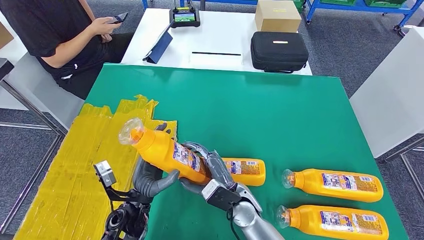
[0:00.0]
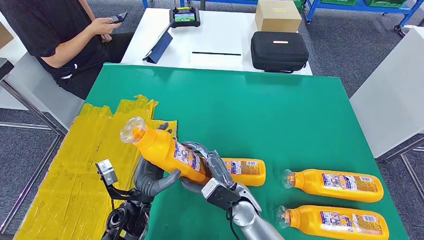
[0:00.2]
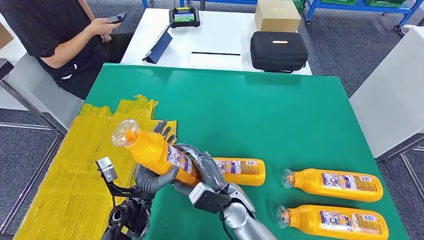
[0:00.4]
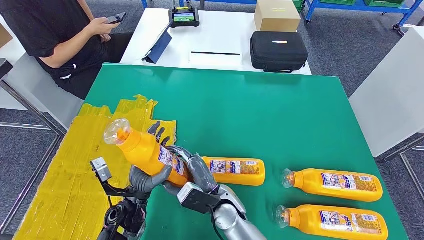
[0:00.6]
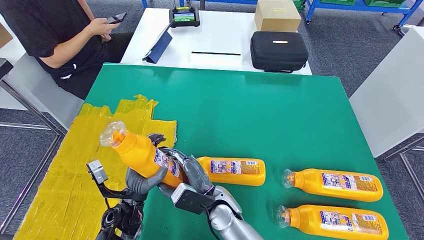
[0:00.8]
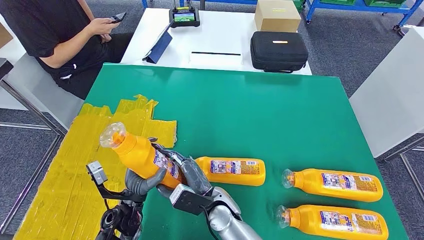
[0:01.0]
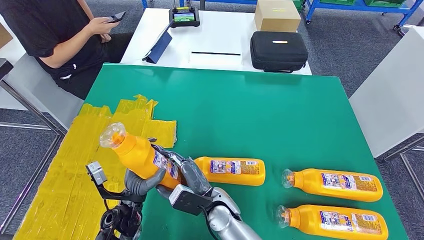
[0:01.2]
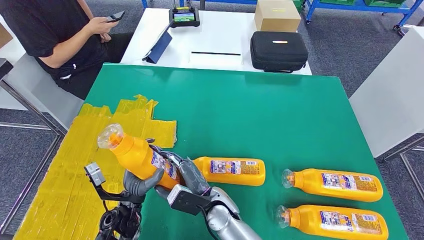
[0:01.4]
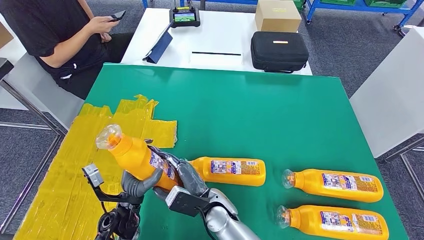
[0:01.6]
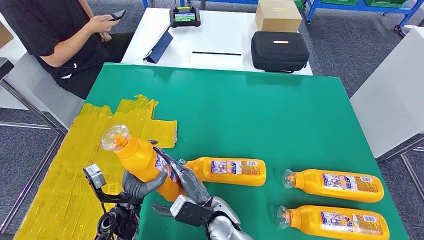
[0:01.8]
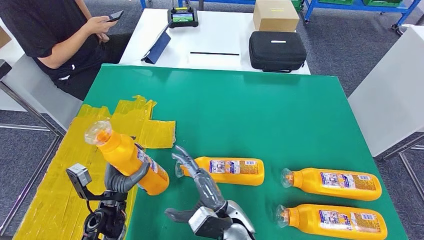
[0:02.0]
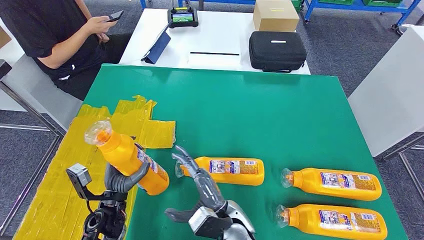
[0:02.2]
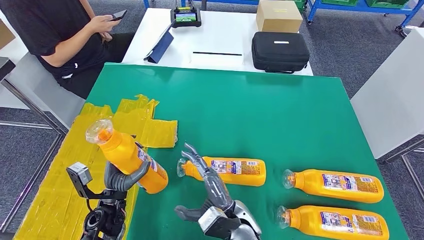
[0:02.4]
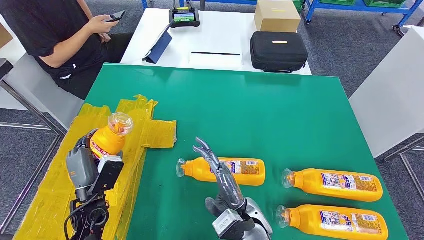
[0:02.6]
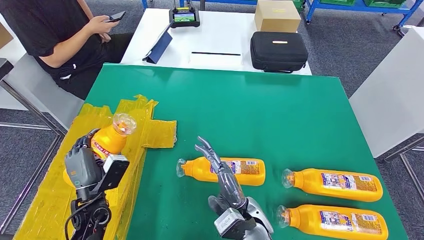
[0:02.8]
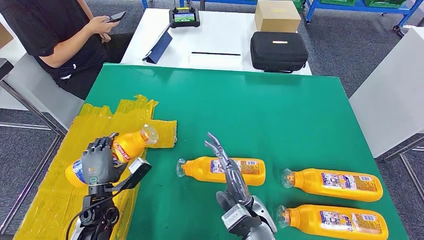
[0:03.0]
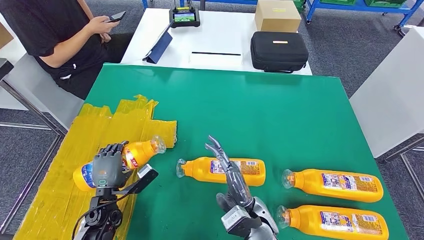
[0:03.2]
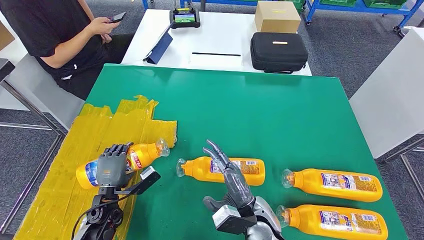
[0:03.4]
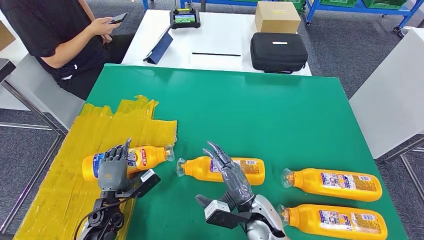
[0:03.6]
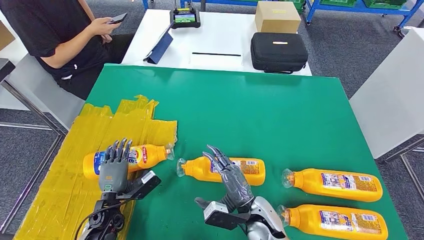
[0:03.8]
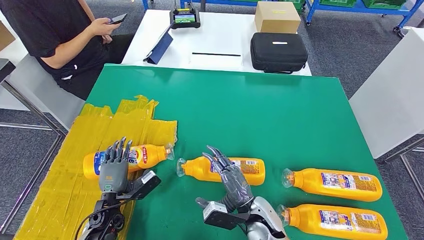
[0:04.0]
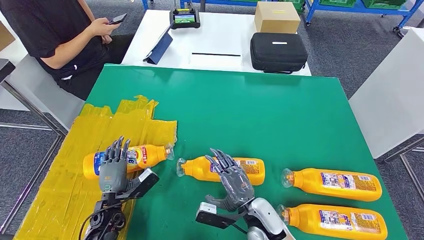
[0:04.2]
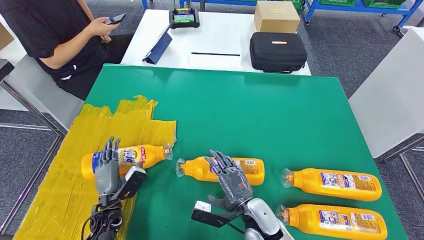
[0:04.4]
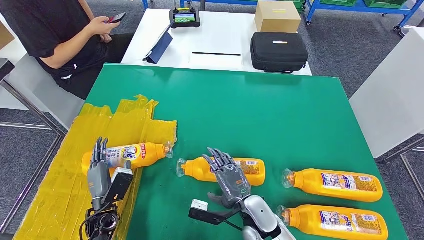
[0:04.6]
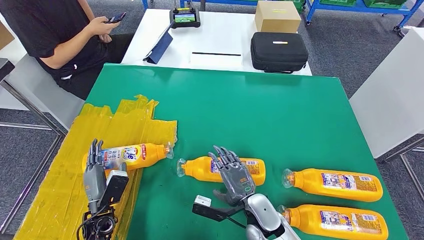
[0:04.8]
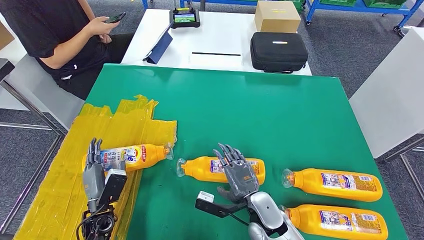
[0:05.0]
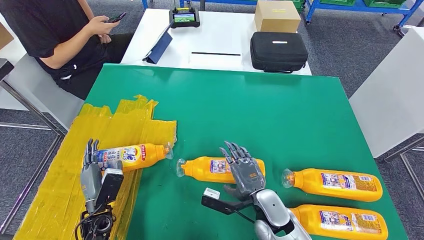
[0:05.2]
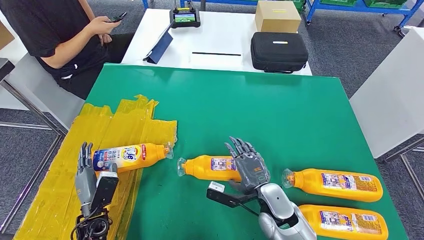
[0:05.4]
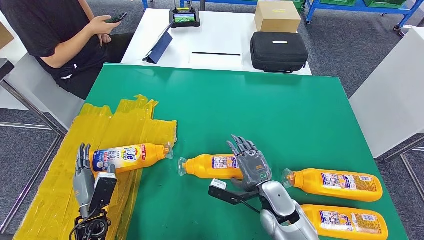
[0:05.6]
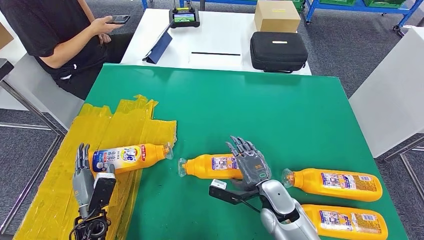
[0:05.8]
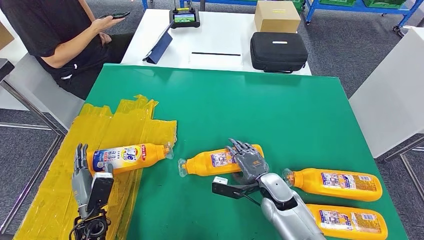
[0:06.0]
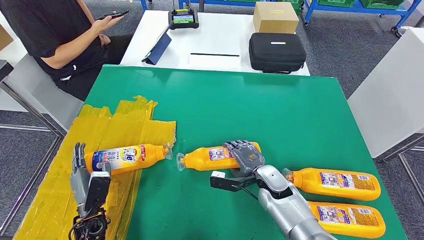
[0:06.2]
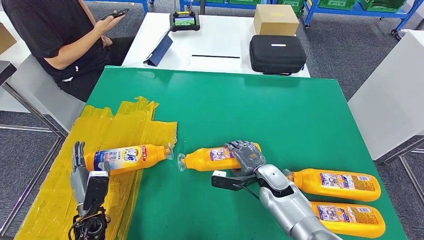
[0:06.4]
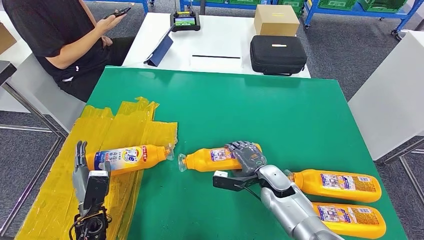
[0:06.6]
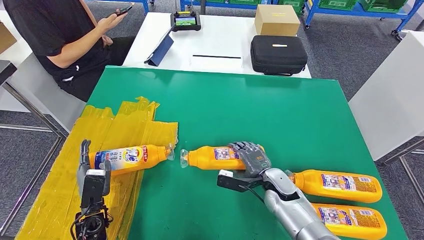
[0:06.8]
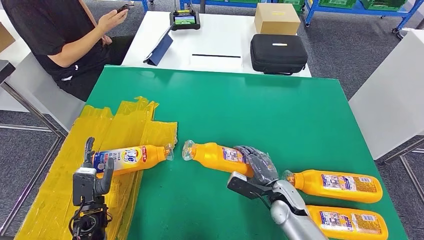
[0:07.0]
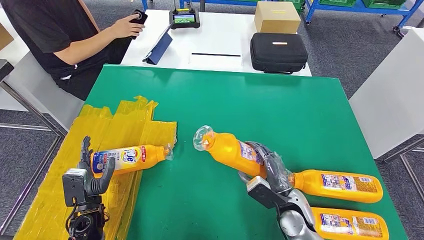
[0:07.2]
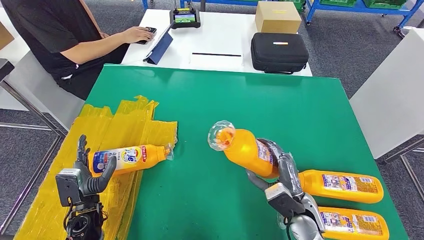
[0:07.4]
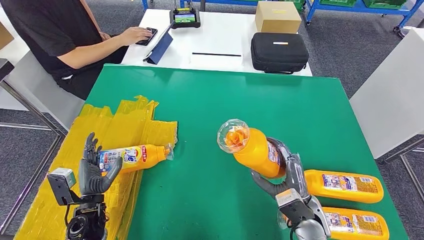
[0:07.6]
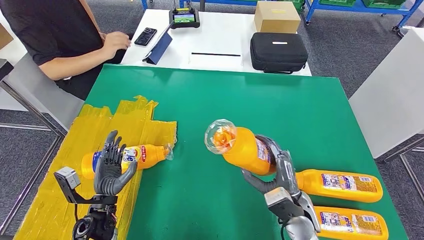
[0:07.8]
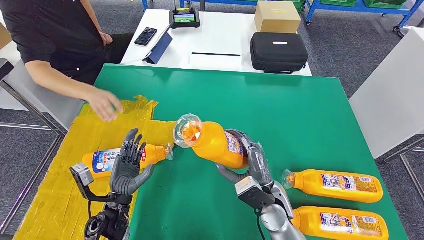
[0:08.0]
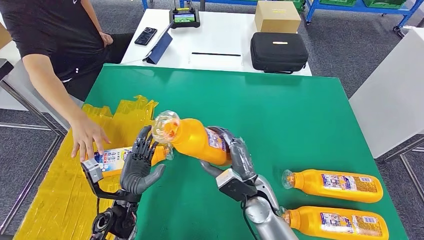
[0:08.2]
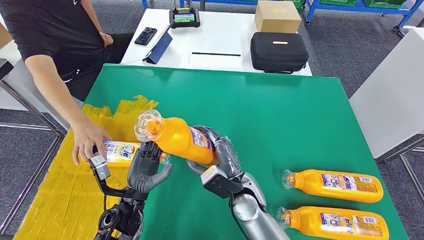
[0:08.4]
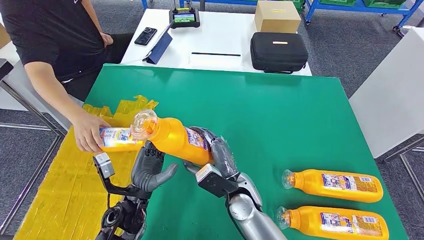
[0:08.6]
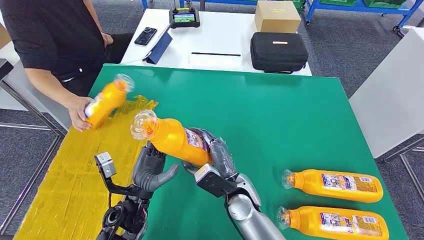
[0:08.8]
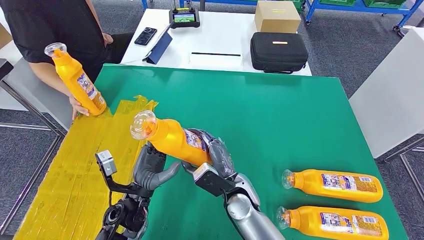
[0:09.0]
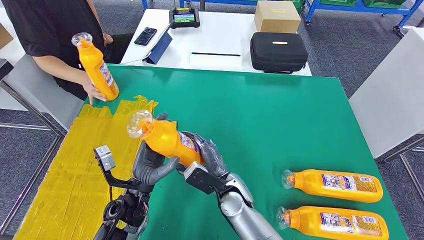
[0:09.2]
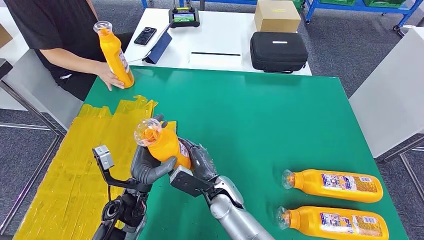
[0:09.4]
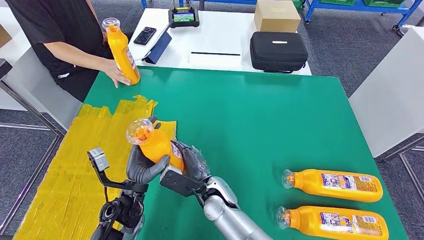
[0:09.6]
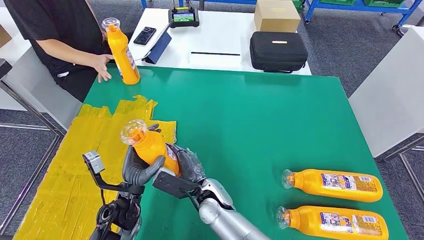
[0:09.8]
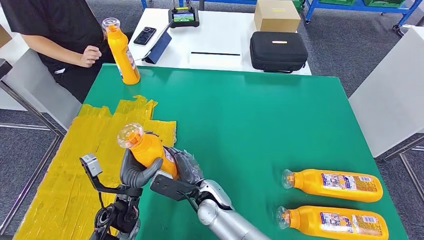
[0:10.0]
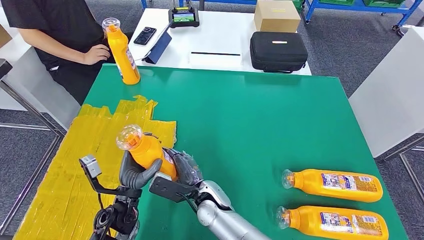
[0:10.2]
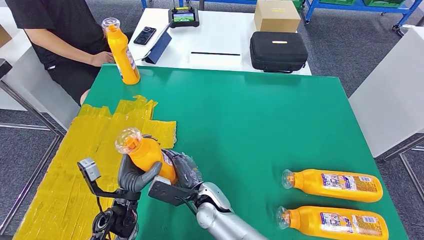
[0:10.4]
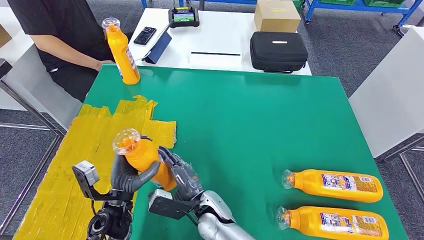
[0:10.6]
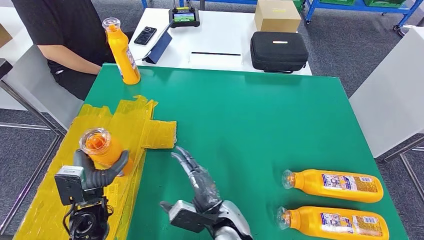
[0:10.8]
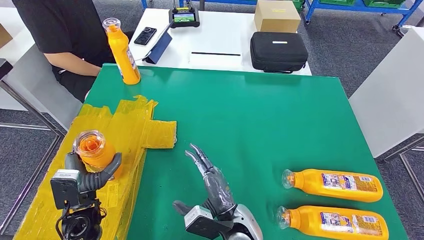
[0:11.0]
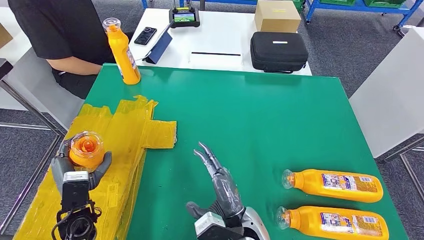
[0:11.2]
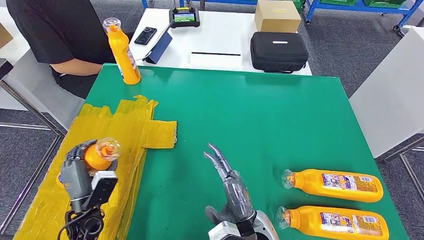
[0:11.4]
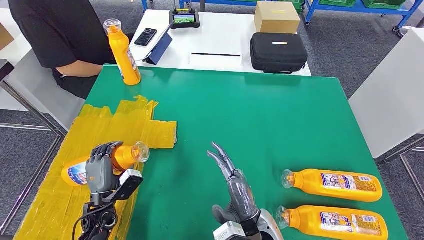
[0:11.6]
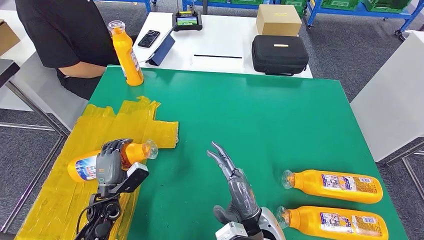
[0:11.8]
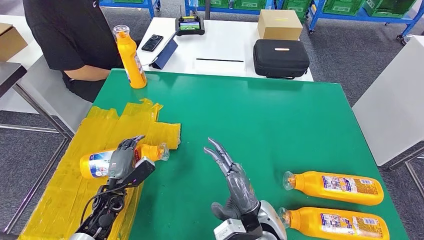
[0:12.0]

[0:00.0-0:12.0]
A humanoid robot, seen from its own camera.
Step, 0:00.0 to 0:04.4: Flip the bottle to face forward.
Step, 0:06.8 to 0:09.4: Pick up the bottle from the table.
0:00.0 to 0:01.6: The right hand goes about 10 cm to the left.
0:01.6 to 0:03.0: The right hand shifts some 10 cm to the right. The left hand heads to the left, covering some 10 cm.
0:03.0 to 0:04.4: The right hand changes place by roughly 5 cm. Meanwhile the left hand changes place by roughly 5 cm.
0:04.4 to 0:06.0: The right hand travels forward and to the right by about 10 cm.
0:06.0 to 0:07.6: The right hand travels backward and to the right by roughly 10 cm.
0:09.0 to 0:10.4: The right hand heads to the left, covering approximately 10 cm.

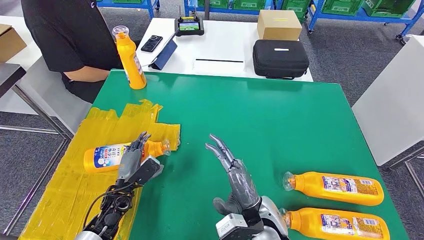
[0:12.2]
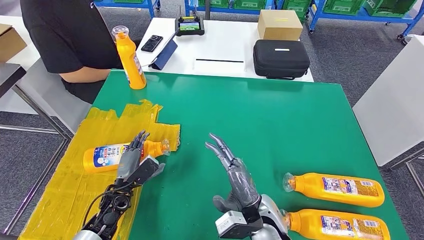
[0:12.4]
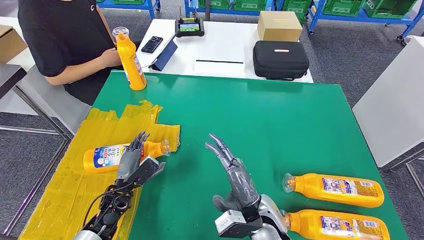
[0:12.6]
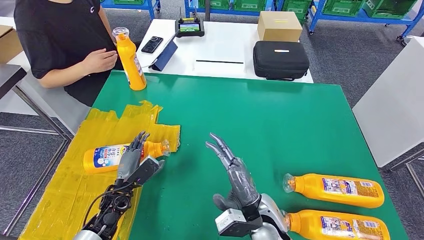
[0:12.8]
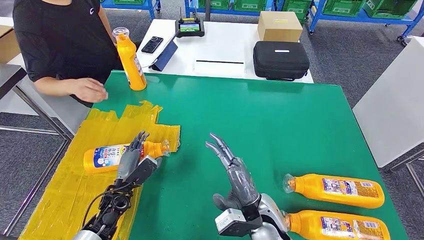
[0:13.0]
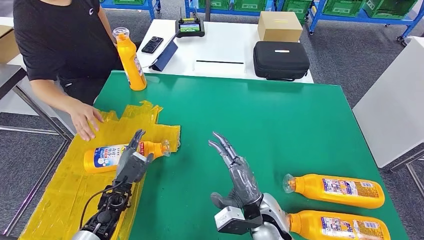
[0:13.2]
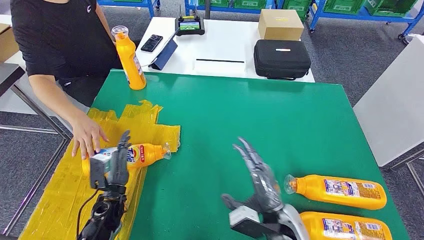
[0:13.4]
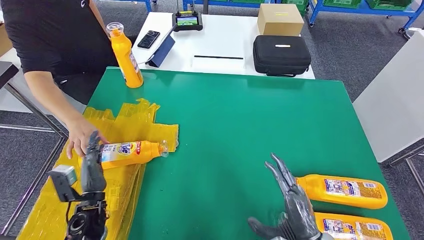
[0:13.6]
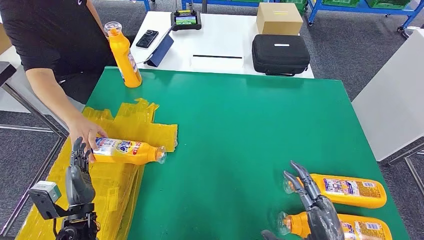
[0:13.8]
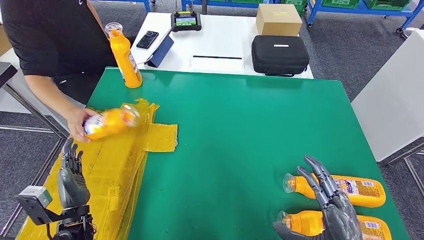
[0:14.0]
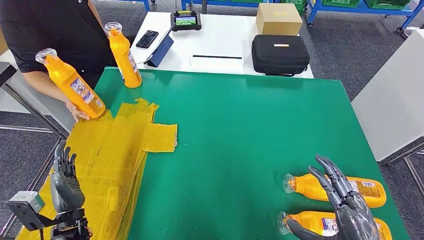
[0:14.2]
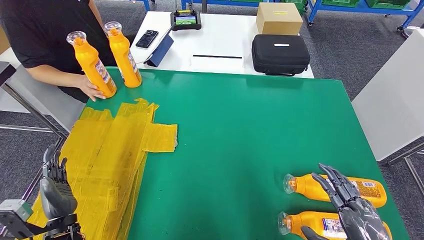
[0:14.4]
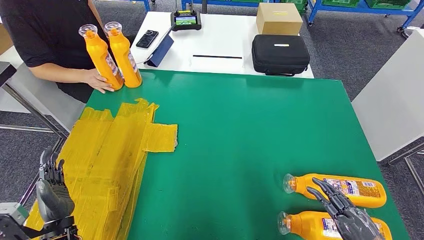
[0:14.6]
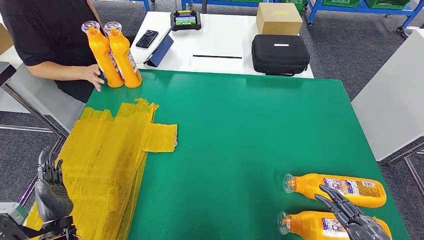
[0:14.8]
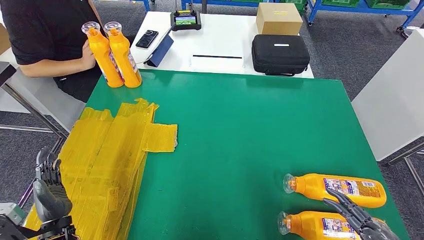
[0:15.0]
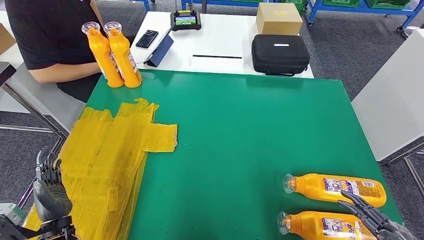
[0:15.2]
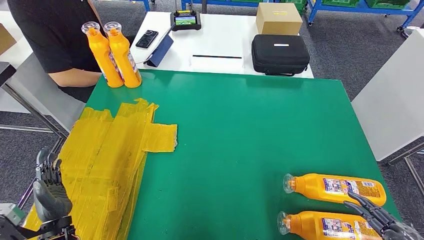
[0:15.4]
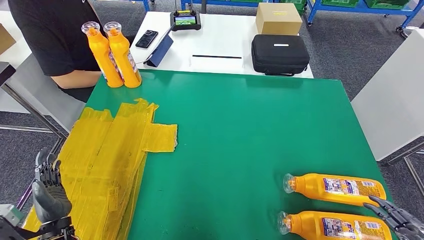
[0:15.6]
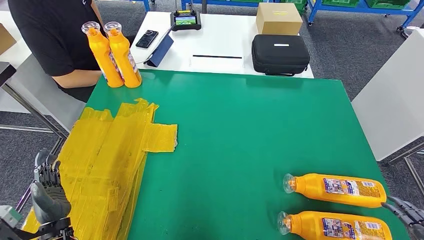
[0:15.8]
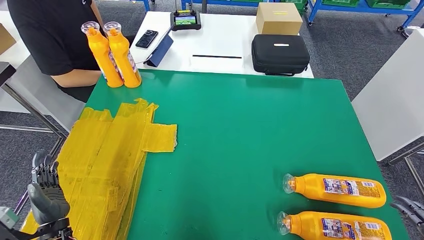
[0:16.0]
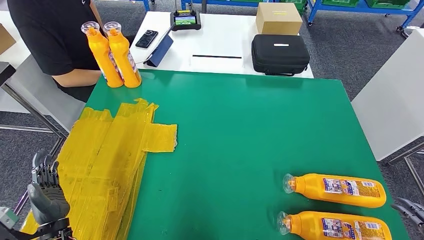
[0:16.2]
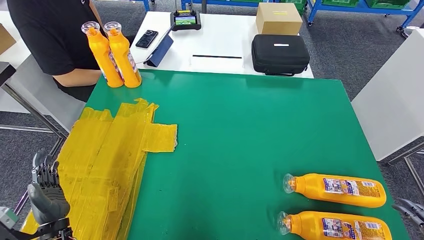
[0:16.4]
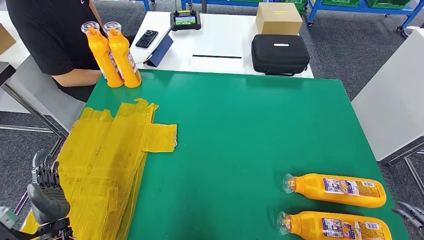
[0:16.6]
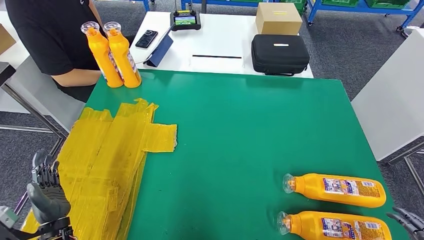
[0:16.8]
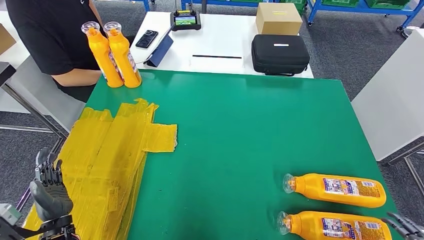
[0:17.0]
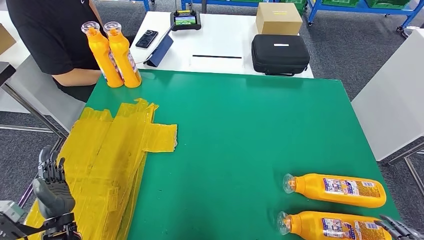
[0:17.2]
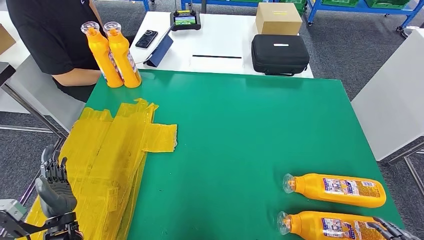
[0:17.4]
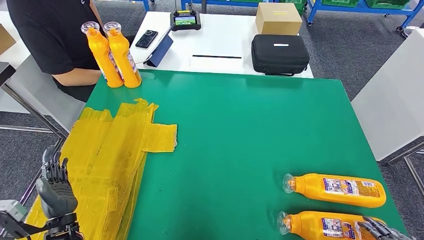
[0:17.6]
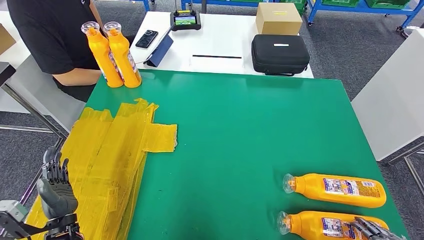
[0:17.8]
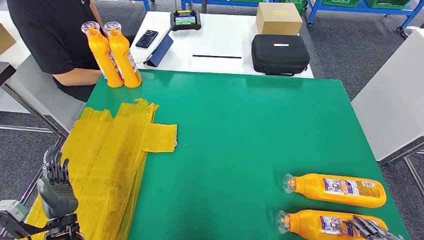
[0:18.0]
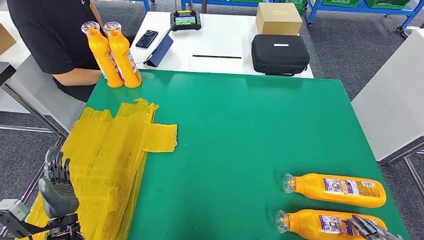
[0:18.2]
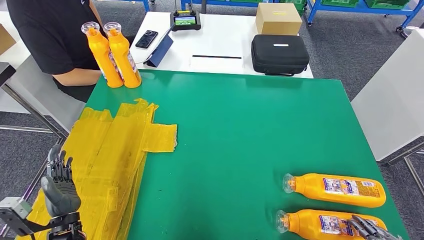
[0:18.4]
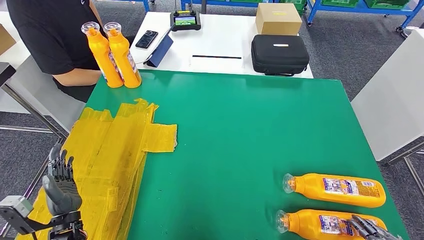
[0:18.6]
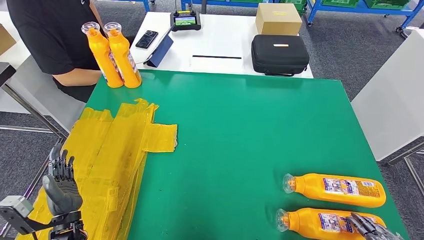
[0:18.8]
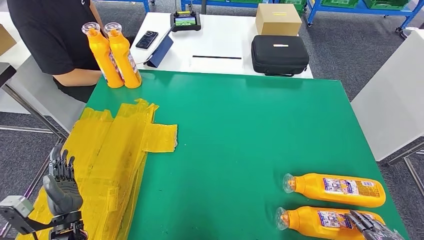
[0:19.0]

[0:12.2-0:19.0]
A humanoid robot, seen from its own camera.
0:15.0 to 0:16.2: The right hand is displaced to the right by approximately 10 cm.
0:16.2 to 0:17.6: The right hand travels downward by some 5 cm.
0:17.6 to 0:19.0: There are only small adjustments of the hands.
